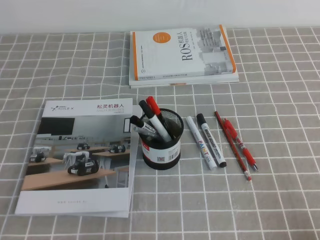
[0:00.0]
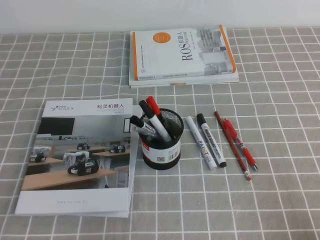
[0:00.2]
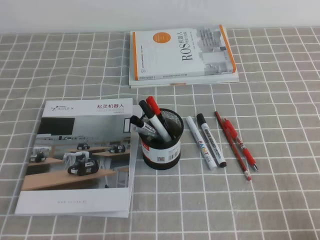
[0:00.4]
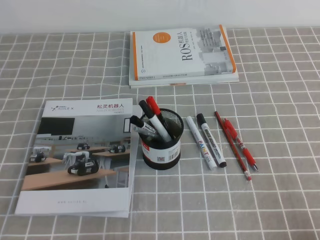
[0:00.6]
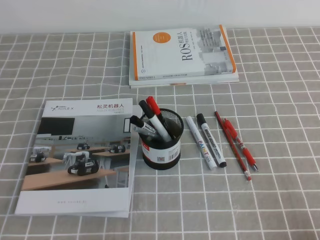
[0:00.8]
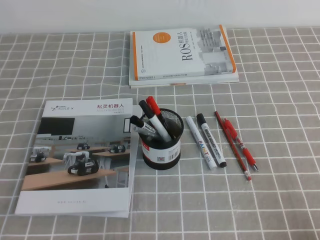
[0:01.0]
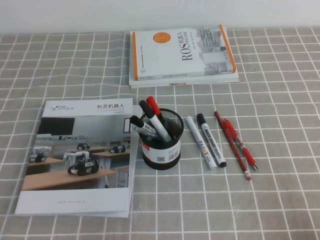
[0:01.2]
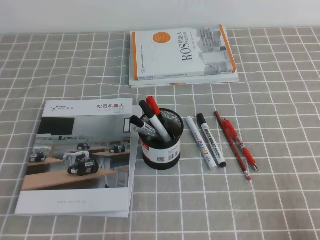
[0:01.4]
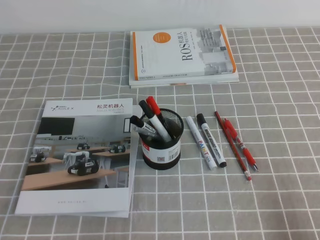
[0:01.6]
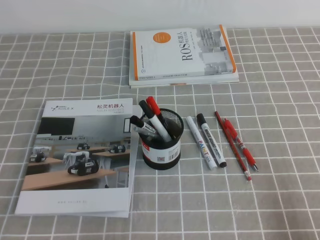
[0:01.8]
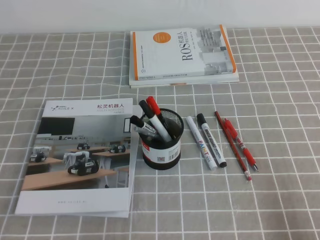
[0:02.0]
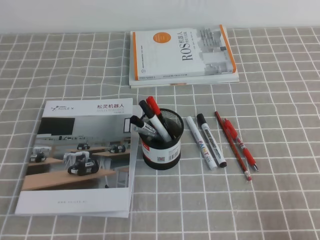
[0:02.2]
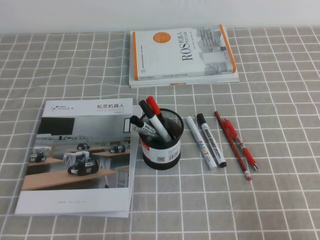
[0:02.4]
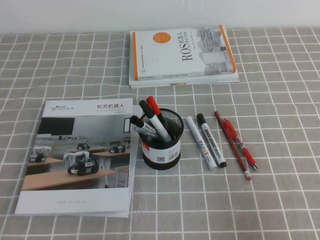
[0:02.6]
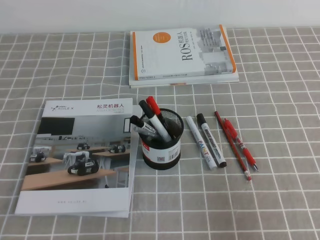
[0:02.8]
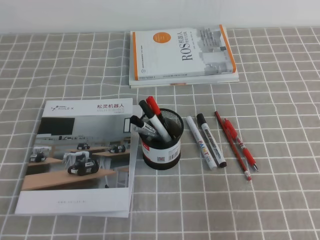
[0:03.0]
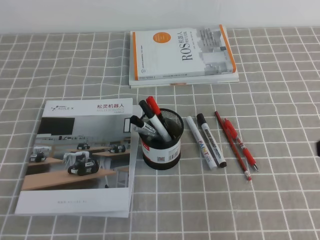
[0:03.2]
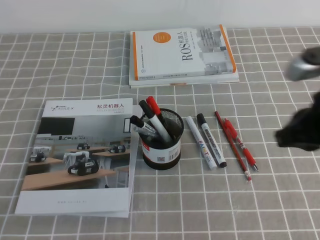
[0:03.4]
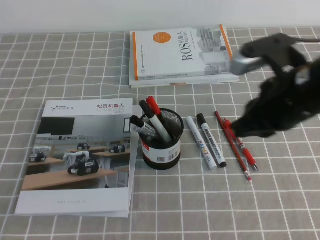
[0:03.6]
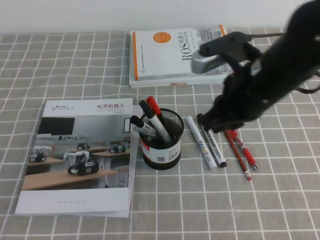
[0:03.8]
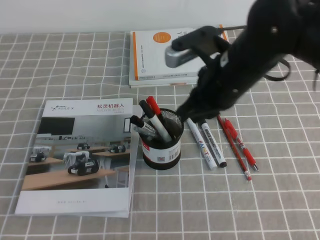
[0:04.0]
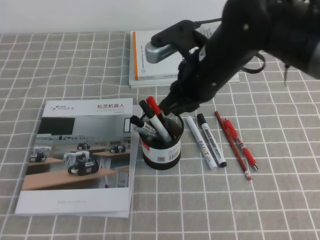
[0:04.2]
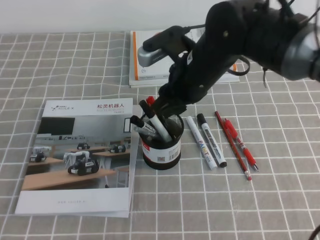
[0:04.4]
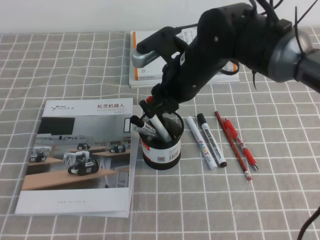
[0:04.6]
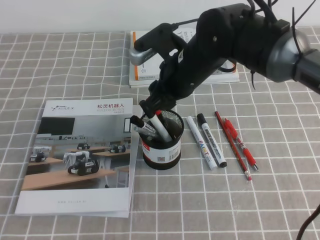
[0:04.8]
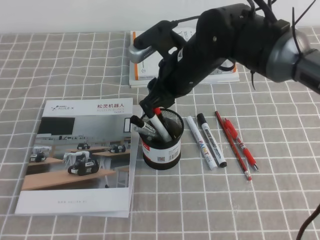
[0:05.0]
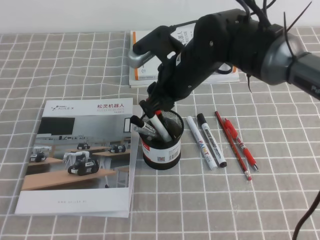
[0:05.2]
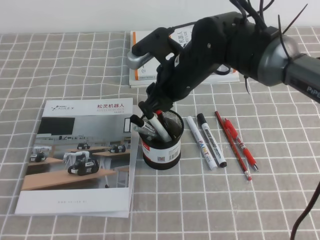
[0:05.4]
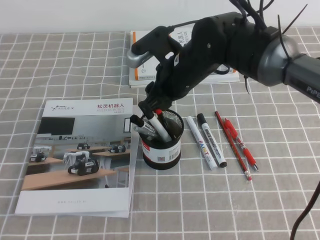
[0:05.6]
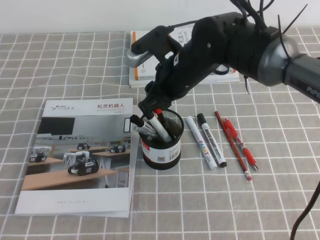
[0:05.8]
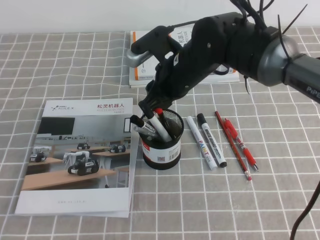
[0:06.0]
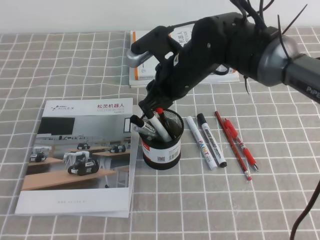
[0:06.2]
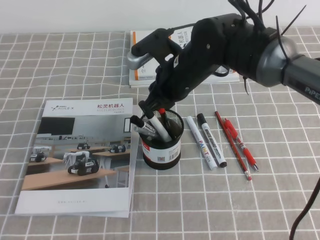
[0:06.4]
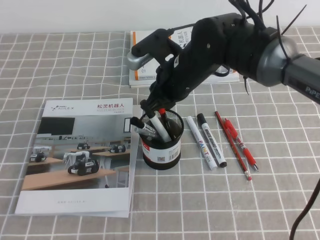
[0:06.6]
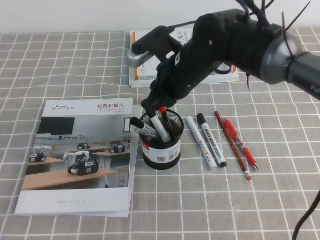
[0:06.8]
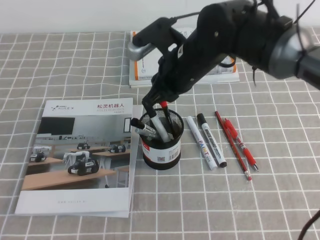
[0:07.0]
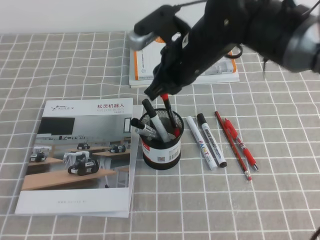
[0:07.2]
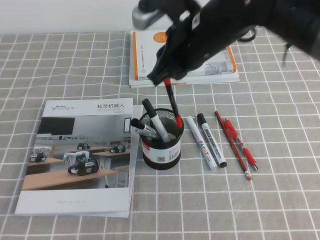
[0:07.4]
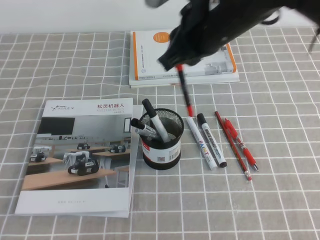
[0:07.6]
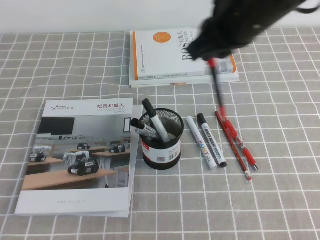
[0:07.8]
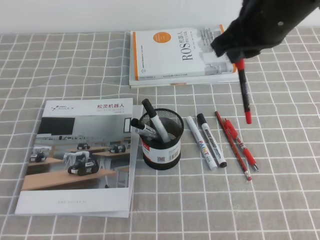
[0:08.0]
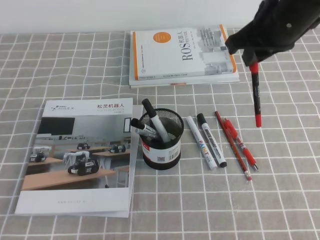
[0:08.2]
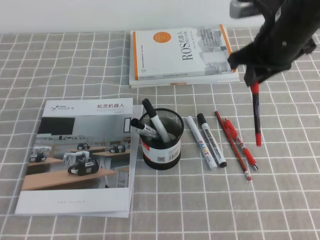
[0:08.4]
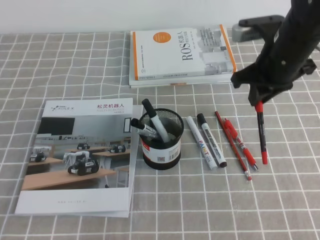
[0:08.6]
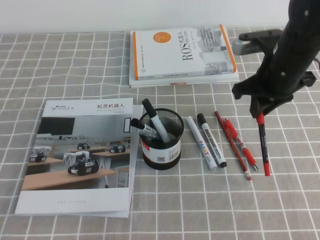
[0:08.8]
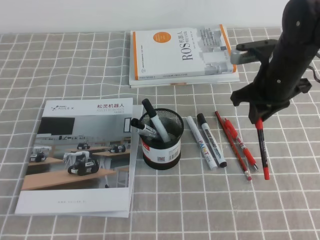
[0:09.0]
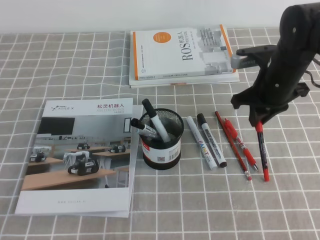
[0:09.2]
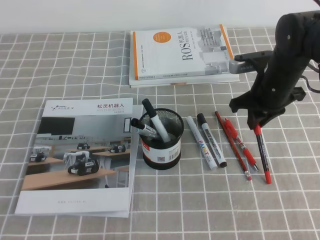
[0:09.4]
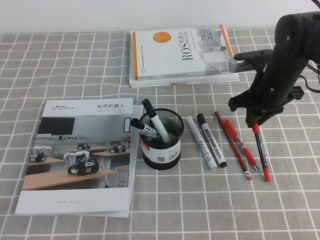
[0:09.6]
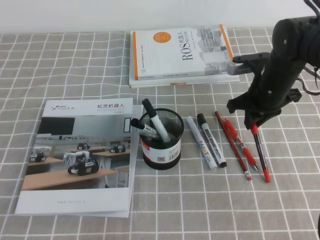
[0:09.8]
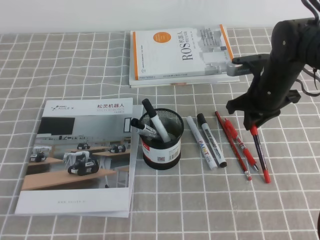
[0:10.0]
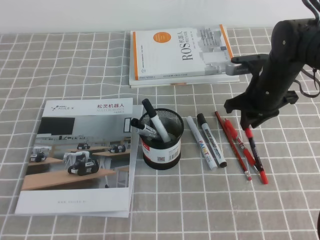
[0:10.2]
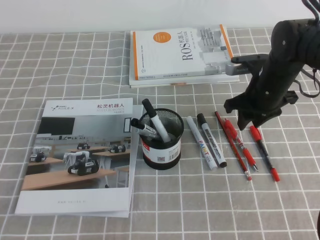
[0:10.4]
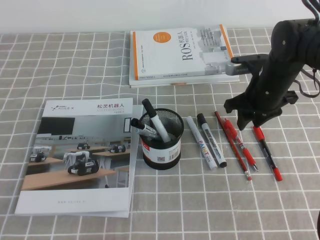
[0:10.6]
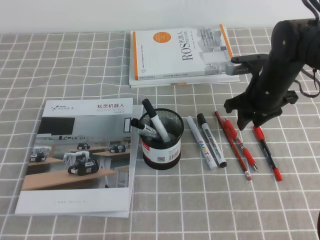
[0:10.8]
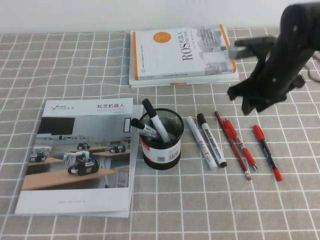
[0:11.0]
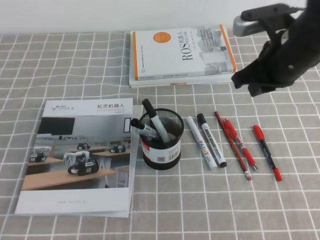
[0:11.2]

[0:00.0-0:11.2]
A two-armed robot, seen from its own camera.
0:01.6 to 0:03.2: The right gripper heads upward and forward, covering about 15 cm.
0:03.2 to 0:04.8: The right gripper moves to the left and forward, about 30 cm, and opens.
0:04.8 to 0:06.4: The right gripper closes its fingers.
0:06.4 to 0:08.0: The right gripper heads upward, to the right and backward, covering some 15 cm.
0:08.0 to 0:09.6: The right gripper shifts about 20 cm downward and forward.
0:09.6 to 0:11.2: The right gripper changes place by about 5 cm, and opens, then closes again.

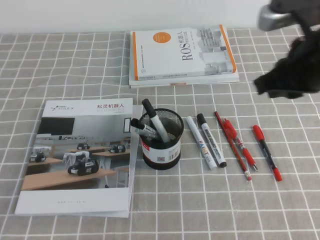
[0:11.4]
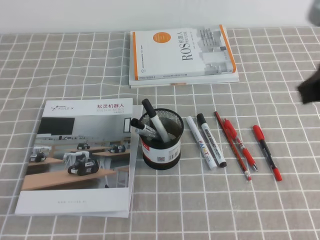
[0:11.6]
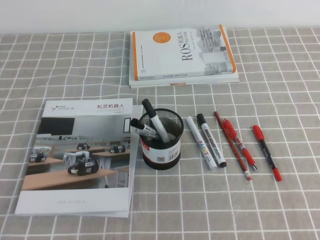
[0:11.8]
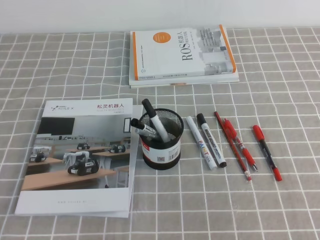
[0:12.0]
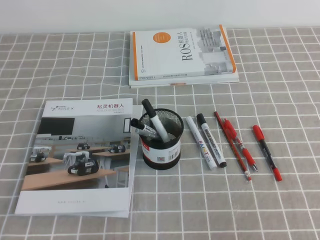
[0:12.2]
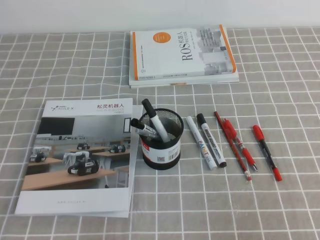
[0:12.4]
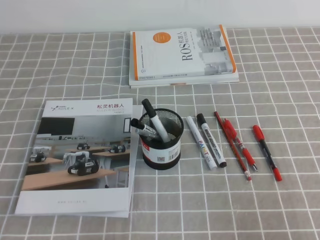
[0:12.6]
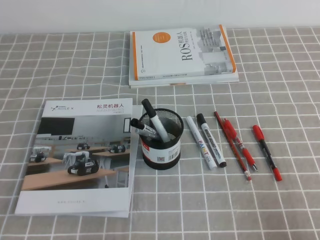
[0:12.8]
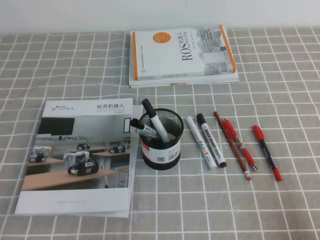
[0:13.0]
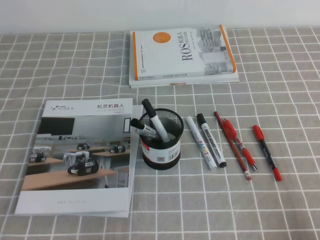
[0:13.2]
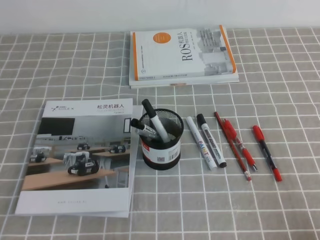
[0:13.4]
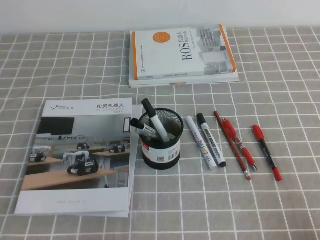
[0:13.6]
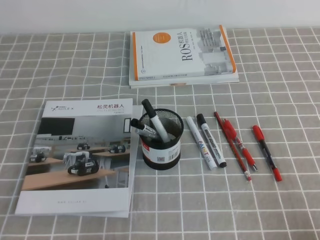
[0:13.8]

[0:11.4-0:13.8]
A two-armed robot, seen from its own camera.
Step, 0:11.4 to 0:13.8: Pick up the pen from the pen holder.
0:11.4 to 0:12.6: The right gripper heads backward, covering approximately 25 cm.
0:12.6 to 0:13.8: The right gripper shifts roughly 10 cm downward.

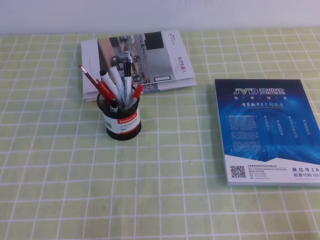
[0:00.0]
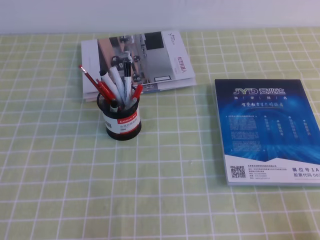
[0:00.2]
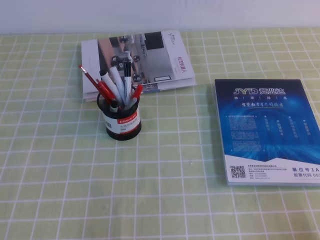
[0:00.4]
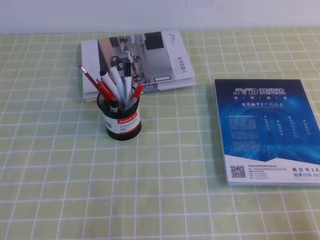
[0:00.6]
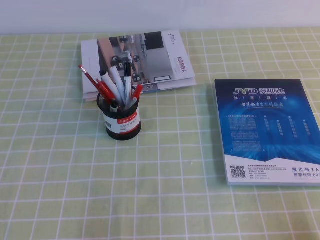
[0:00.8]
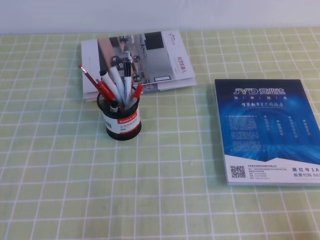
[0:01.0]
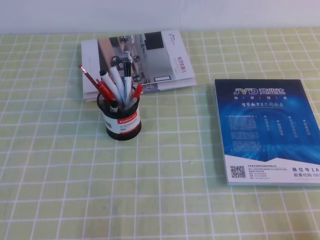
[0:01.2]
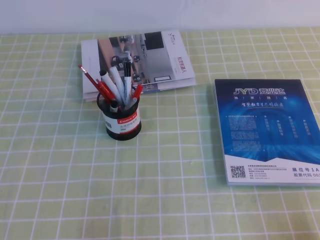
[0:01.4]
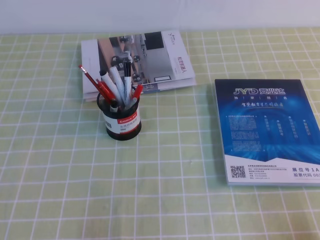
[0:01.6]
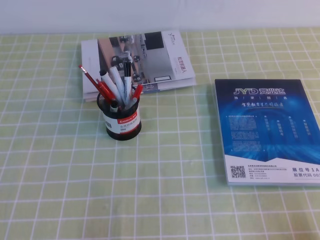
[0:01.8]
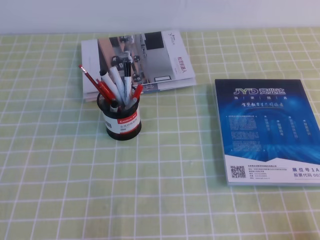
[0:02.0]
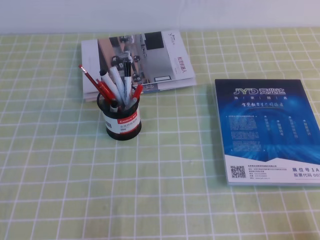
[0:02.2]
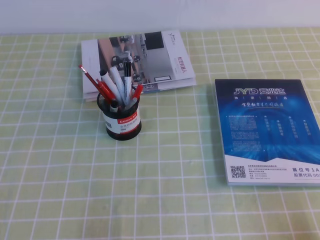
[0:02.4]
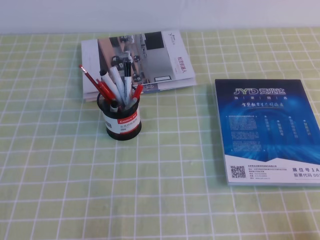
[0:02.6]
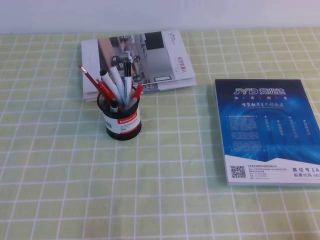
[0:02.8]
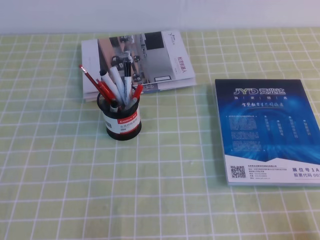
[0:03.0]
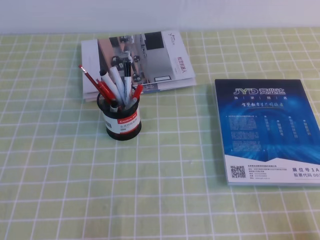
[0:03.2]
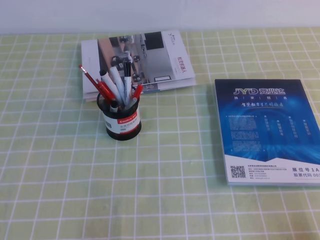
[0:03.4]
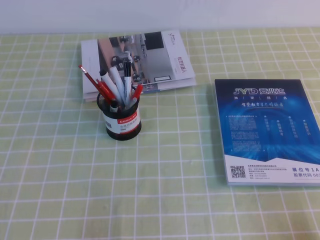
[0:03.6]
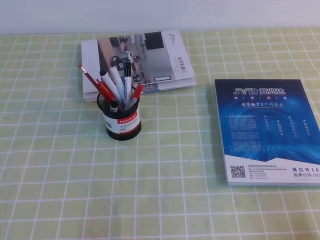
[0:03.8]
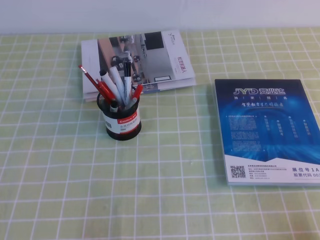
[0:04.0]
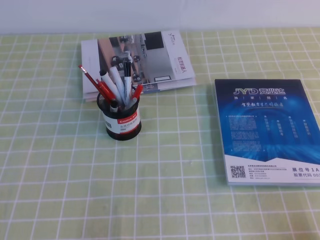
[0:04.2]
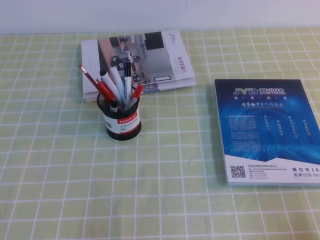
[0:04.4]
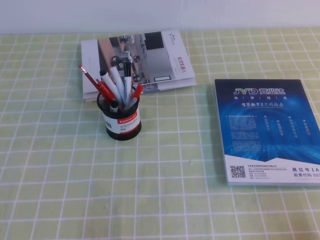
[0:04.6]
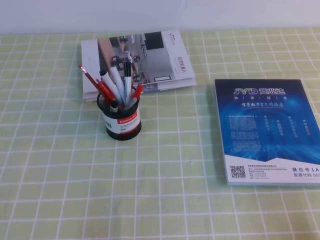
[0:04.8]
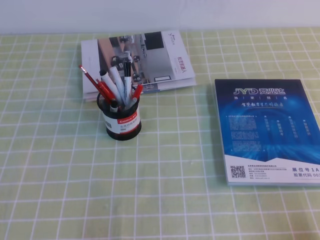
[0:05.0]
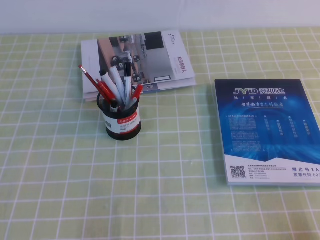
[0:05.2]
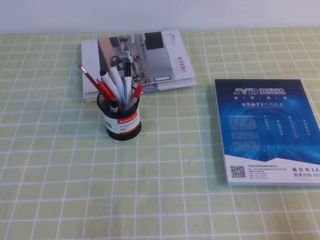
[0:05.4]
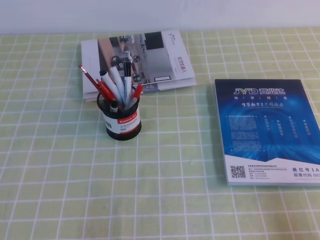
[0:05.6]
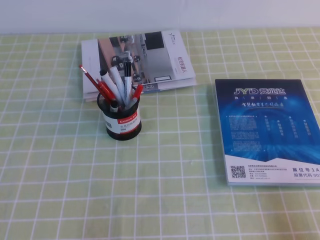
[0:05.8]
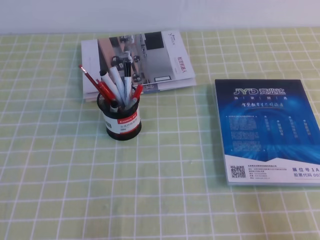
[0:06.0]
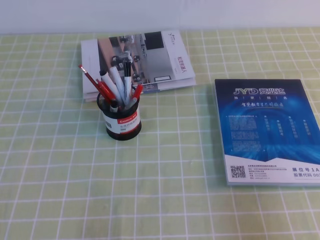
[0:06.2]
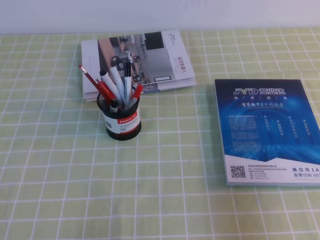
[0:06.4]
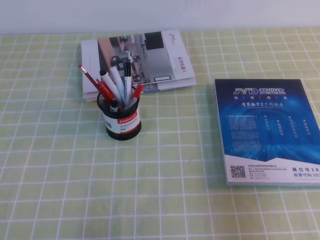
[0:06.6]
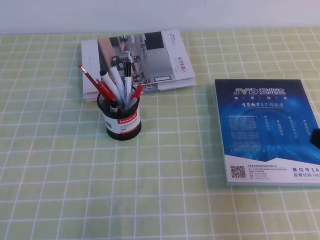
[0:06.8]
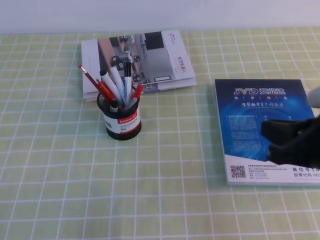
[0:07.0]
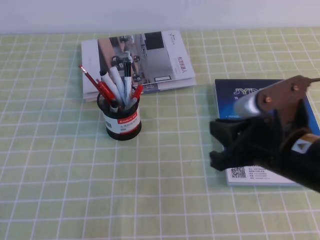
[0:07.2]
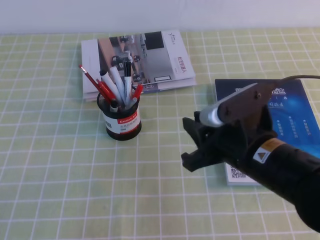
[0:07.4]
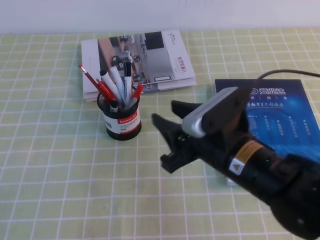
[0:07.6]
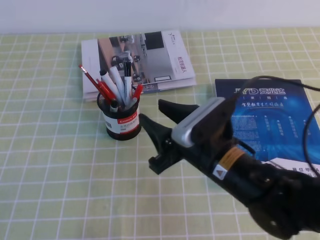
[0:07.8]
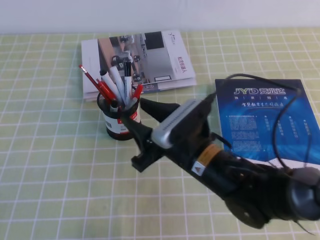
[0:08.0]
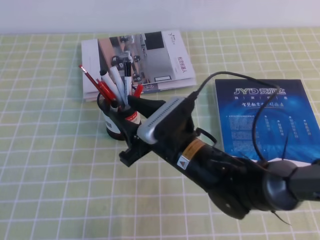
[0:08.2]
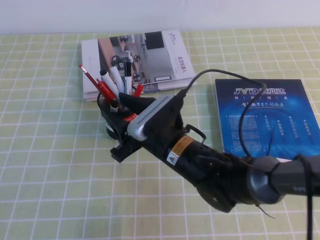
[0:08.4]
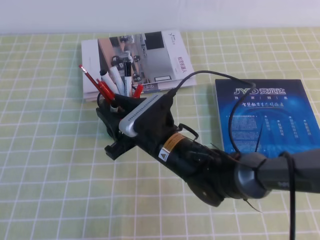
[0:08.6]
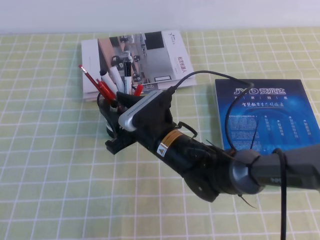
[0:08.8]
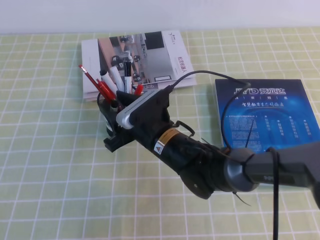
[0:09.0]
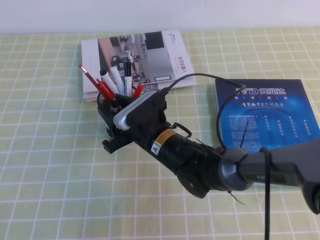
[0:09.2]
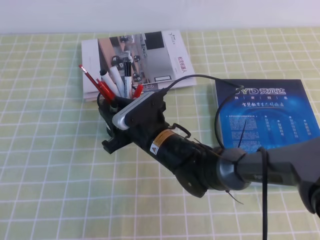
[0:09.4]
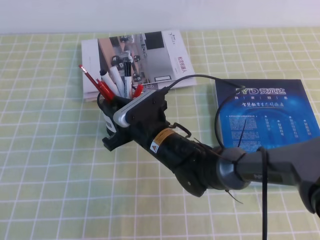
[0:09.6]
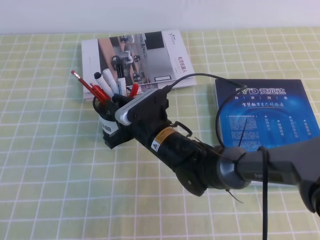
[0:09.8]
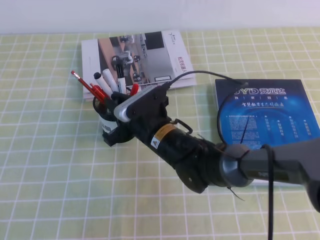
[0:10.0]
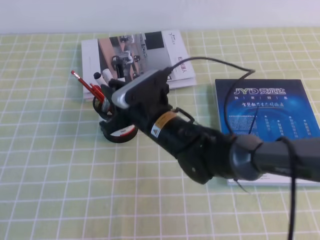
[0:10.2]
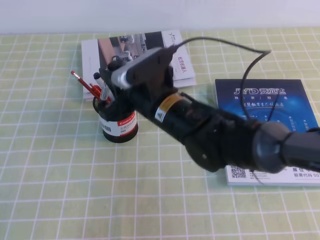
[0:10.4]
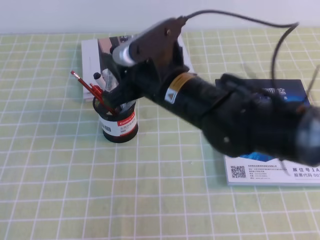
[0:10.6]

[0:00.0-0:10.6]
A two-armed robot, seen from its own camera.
0:00.0 to 0:04.6: Neither gripper changes place.
0:06.0 to 0:07.6: The right gripper travels to the left and forward by approximately 25 cm, and opens up.
0:07.6 to 0:09.0: The right gripper travels to the left, forward and downward by approximately 15 cm.
0:09.0 to 0:10.6: The right gripper goes some 10 cm upward, and closes.
